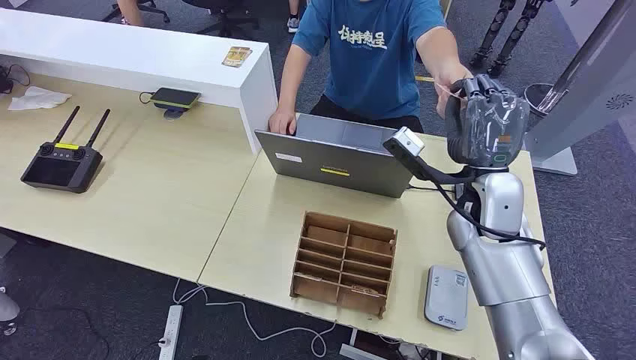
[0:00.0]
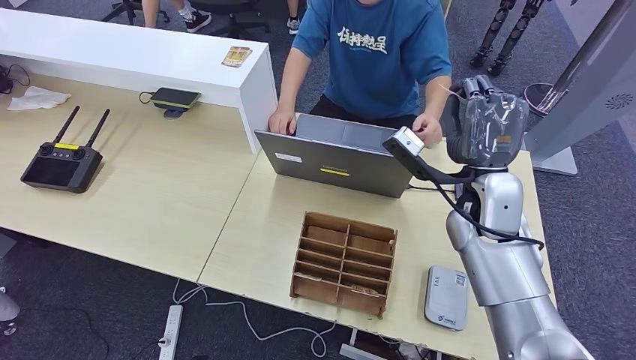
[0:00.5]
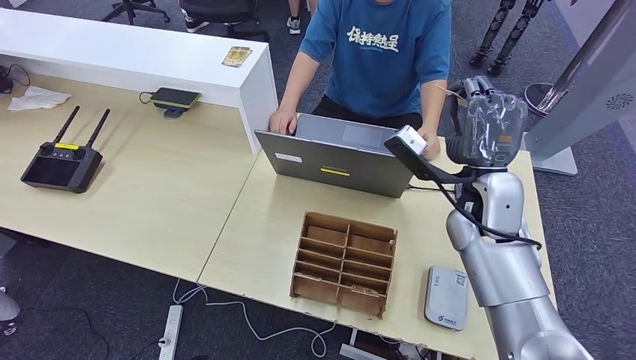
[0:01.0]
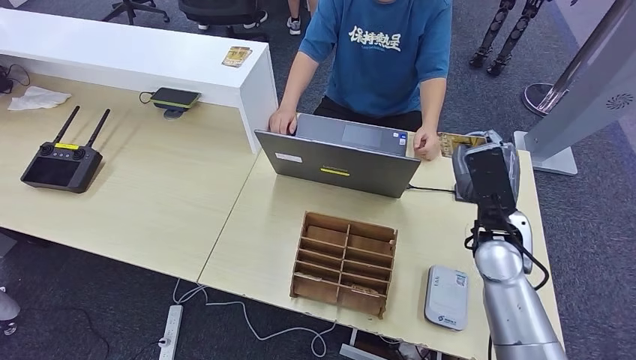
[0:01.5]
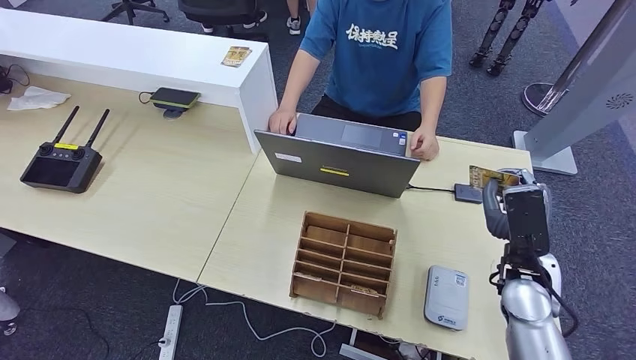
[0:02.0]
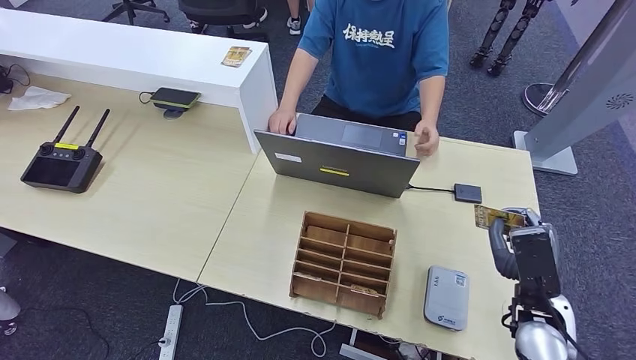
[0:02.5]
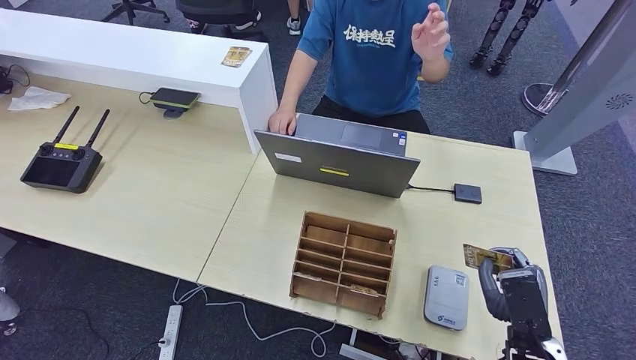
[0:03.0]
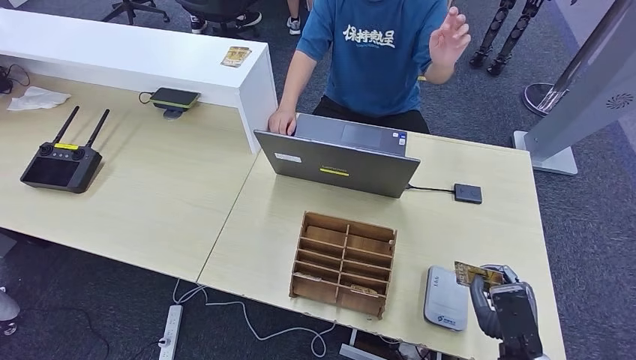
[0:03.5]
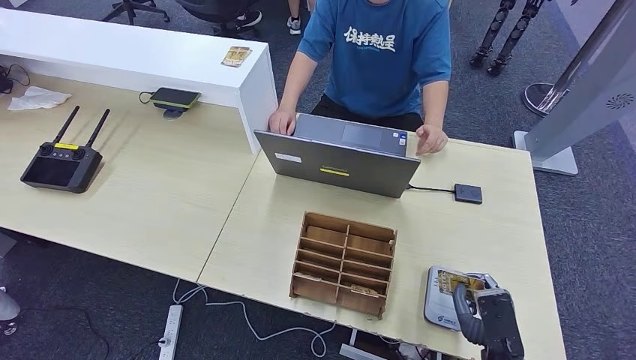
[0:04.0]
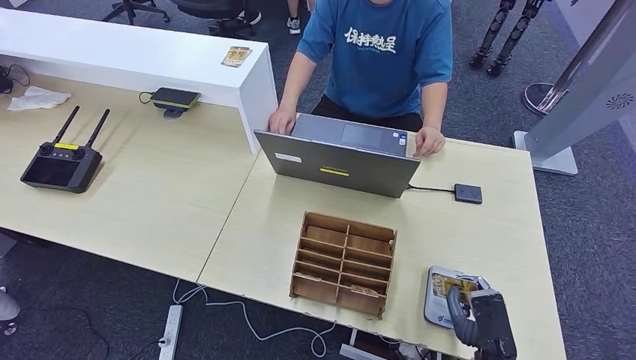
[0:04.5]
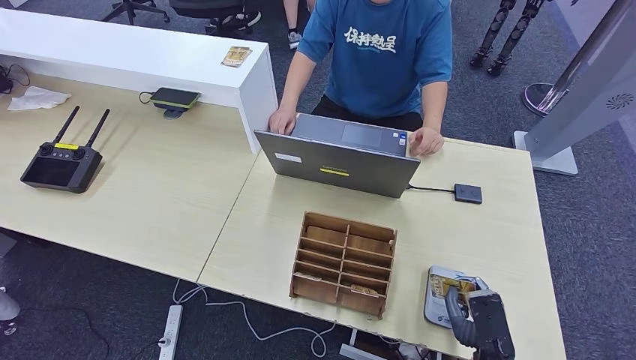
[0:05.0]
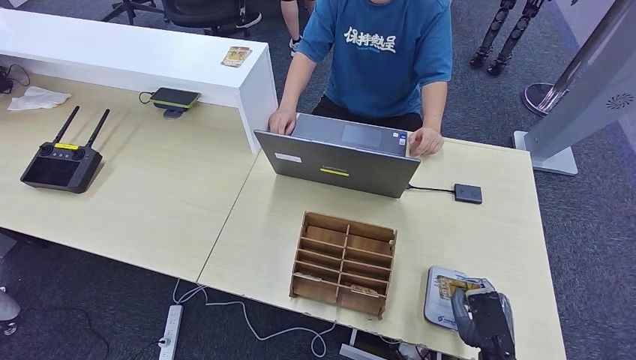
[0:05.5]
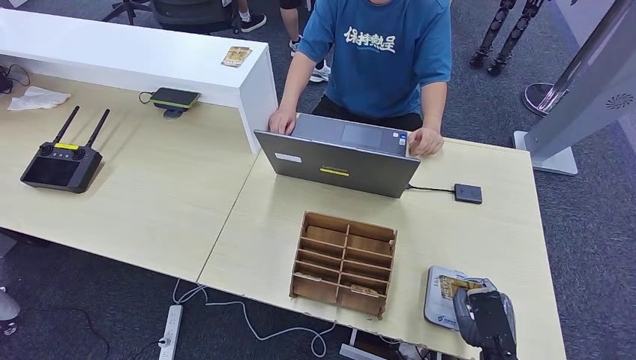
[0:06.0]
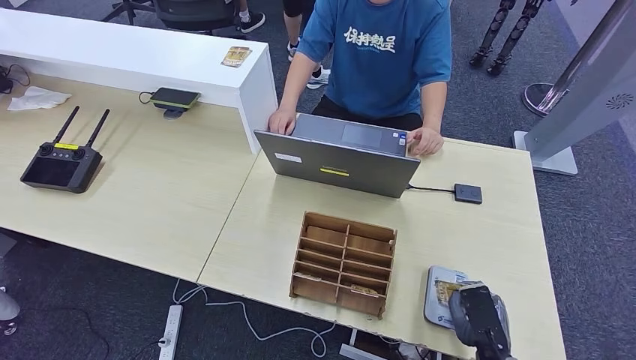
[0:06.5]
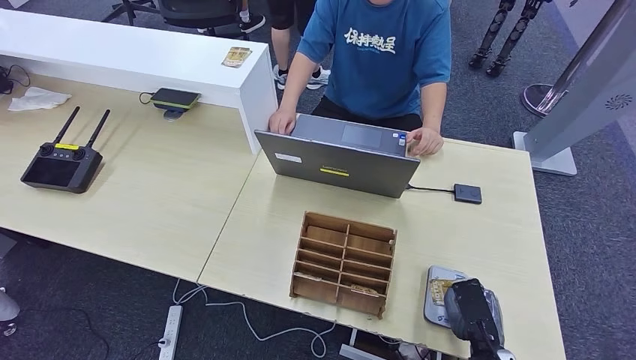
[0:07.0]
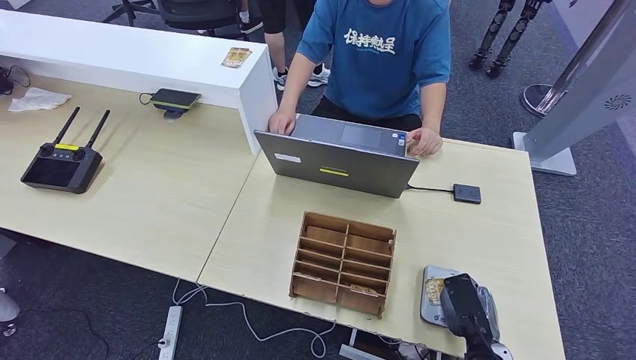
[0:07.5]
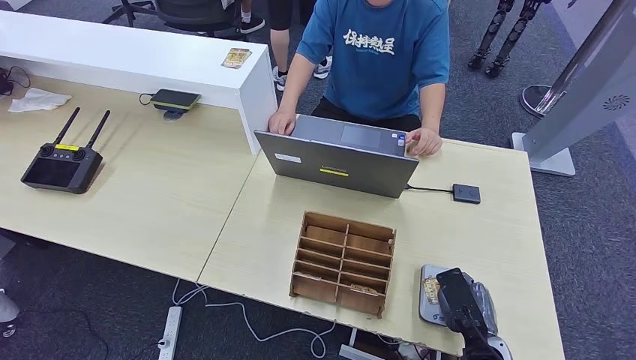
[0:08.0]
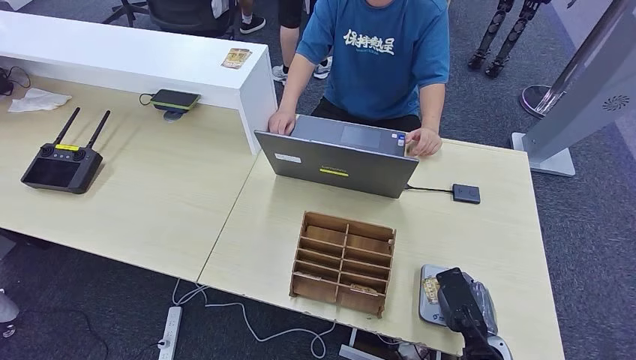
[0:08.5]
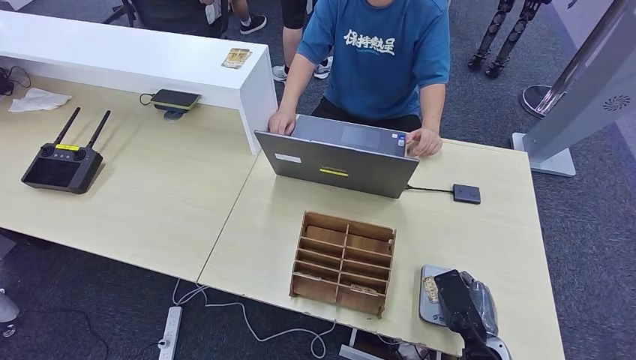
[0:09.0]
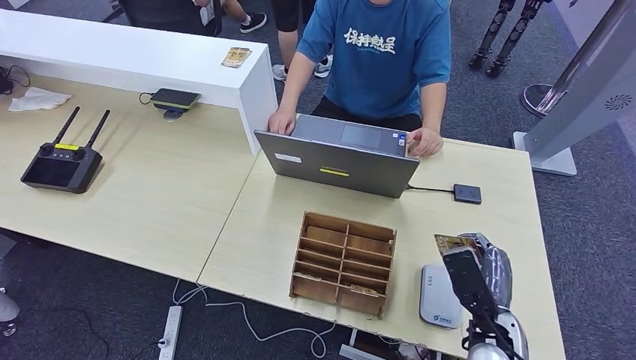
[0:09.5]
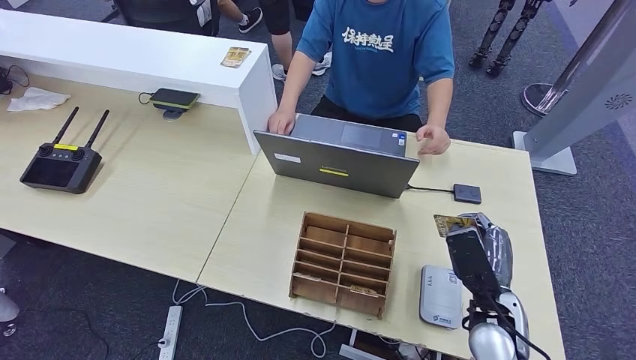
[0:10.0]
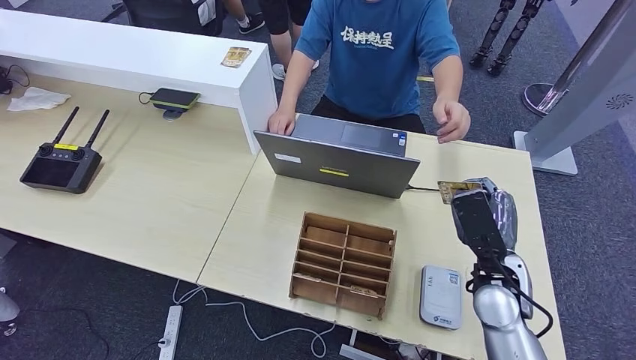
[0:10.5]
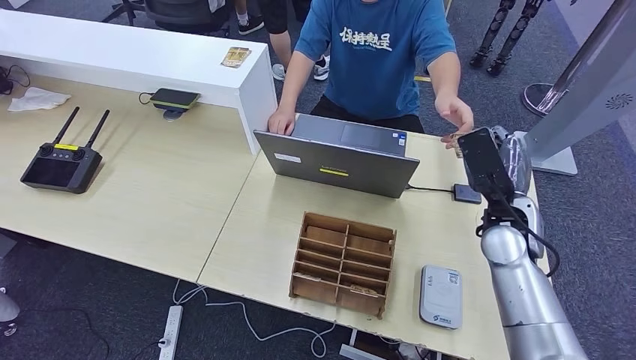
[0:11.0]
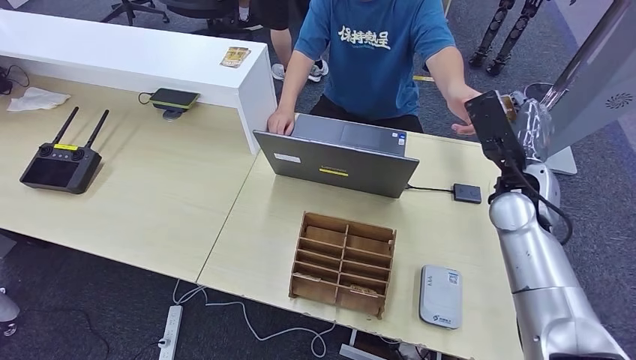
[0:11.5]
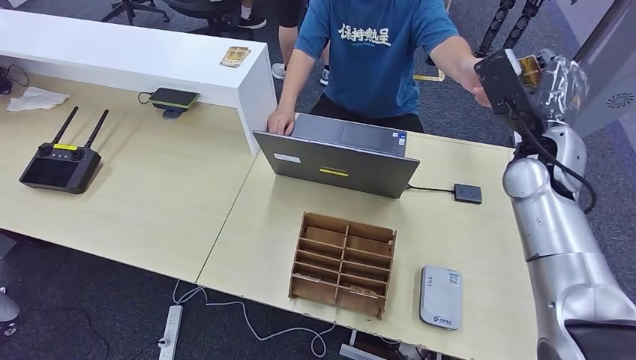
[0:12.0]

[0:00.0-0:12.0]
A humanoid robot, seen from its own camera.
Step, 0:00.0 to 0:01.5: Take the ID card from the person's hand.
Step, 0:02.0 to 0:09.5: Place the ID card on the card reader.
0:02.0 to 0:04.0: The right hand moves backward and downward, roughly 15 cm.
0:04.0 to 0:06.0: The hands move only a little.
0:06.0 to 0:08.0: There are only small adjustments of the hands.
0:08.0 to 0:10.0: The right hand is displaced upward by roughly 10 cm.
0:10.0 to 0:12.0: The right hand travels upward and forward by approximately 25 cm.

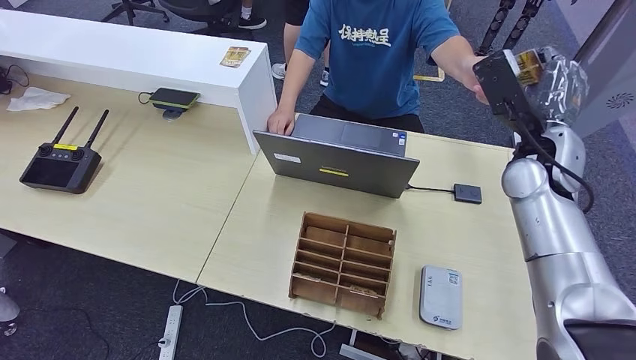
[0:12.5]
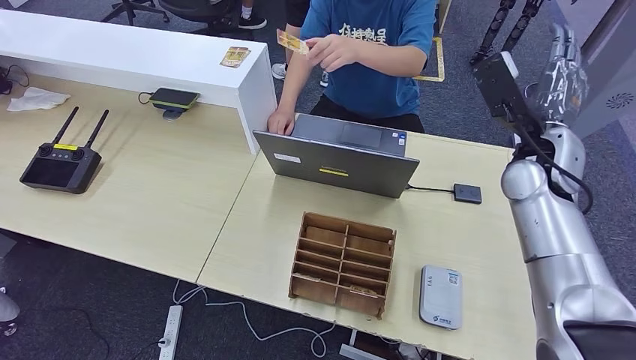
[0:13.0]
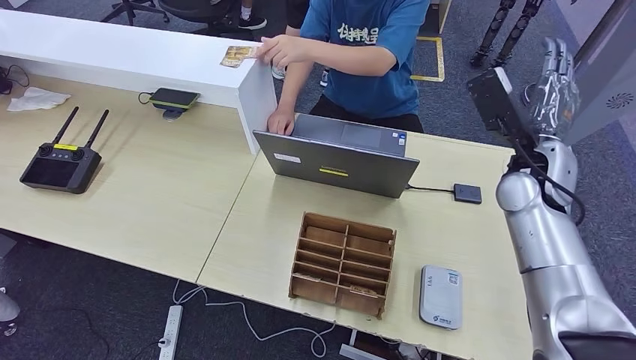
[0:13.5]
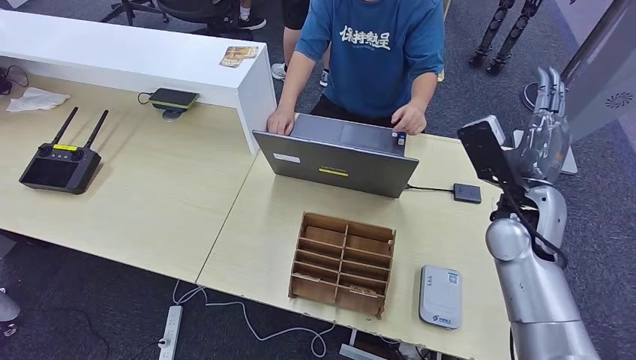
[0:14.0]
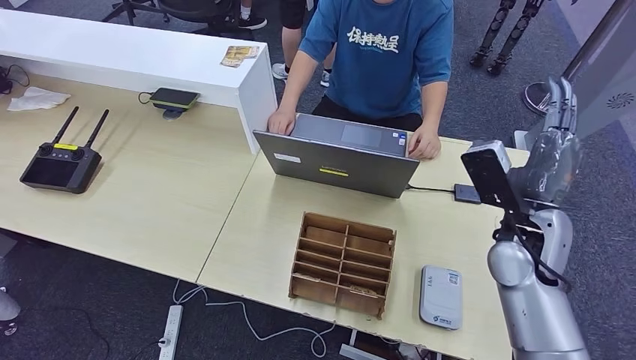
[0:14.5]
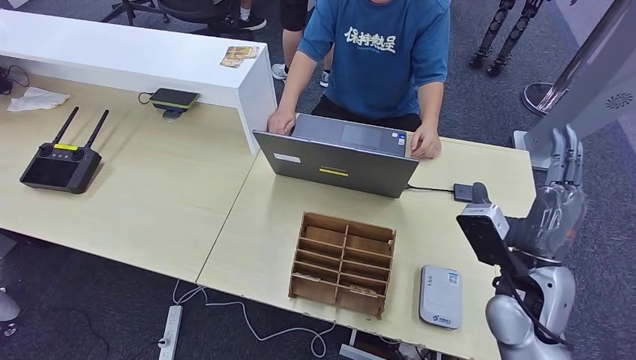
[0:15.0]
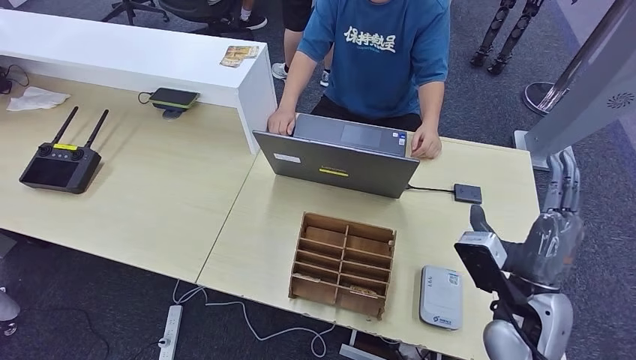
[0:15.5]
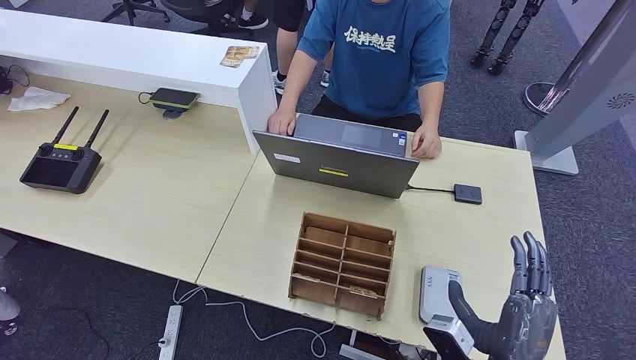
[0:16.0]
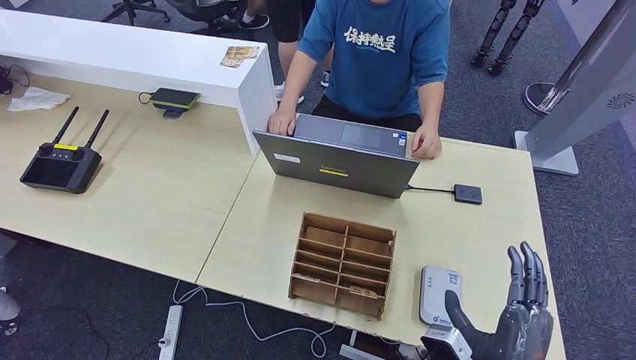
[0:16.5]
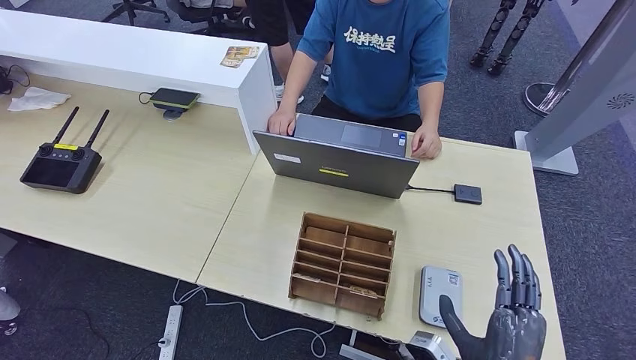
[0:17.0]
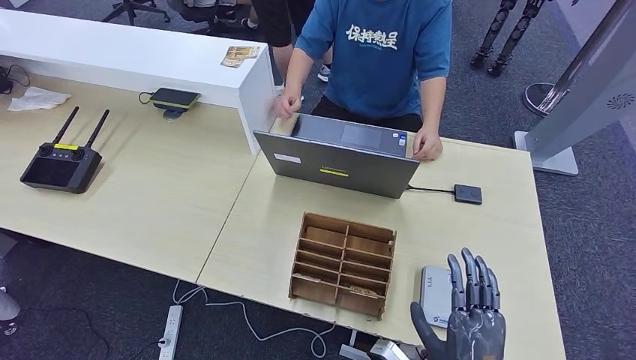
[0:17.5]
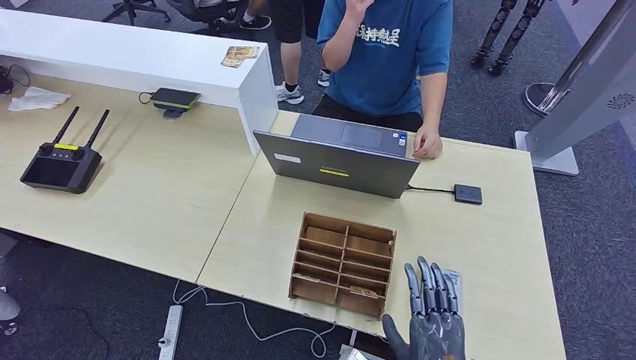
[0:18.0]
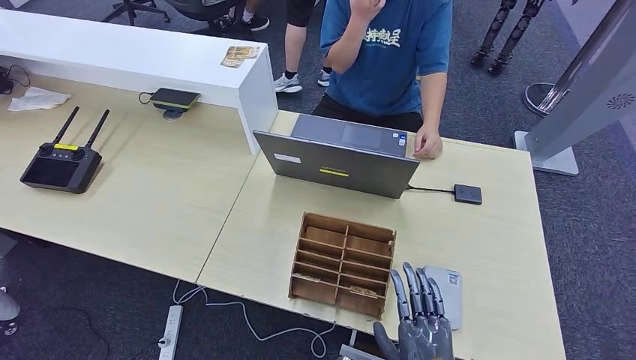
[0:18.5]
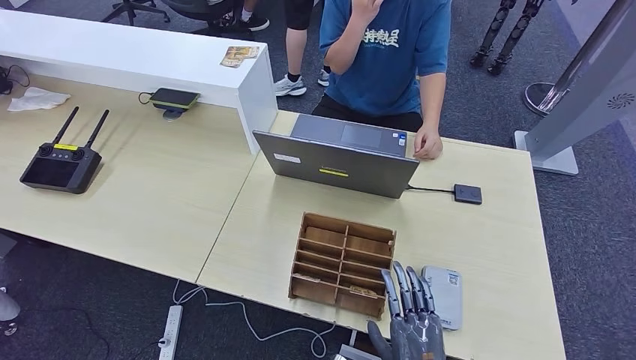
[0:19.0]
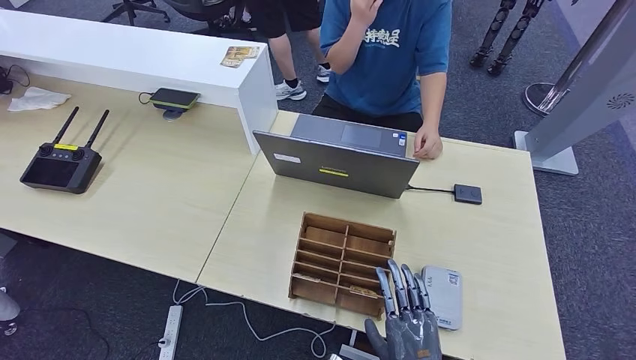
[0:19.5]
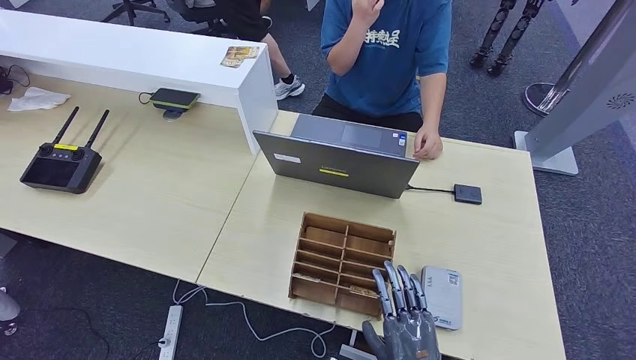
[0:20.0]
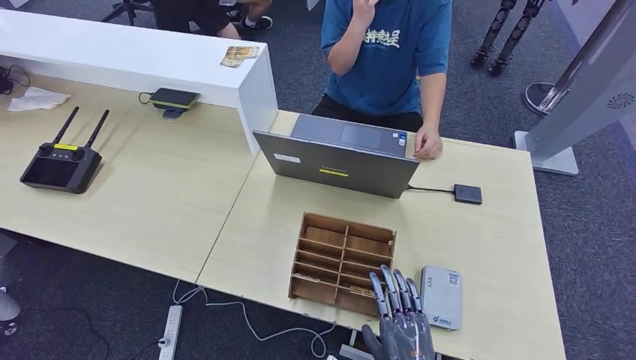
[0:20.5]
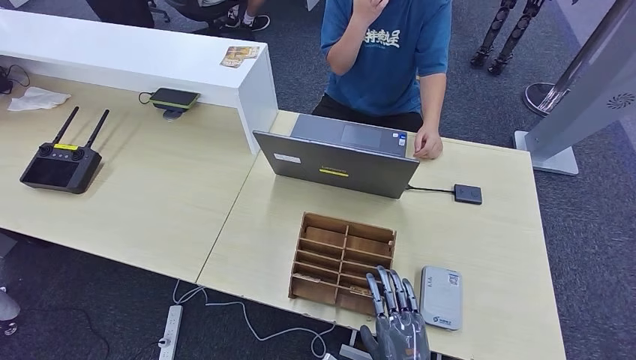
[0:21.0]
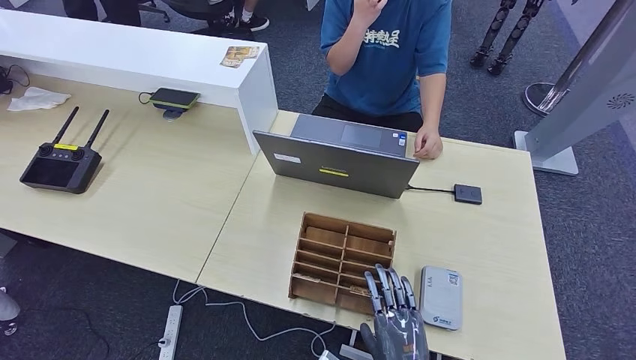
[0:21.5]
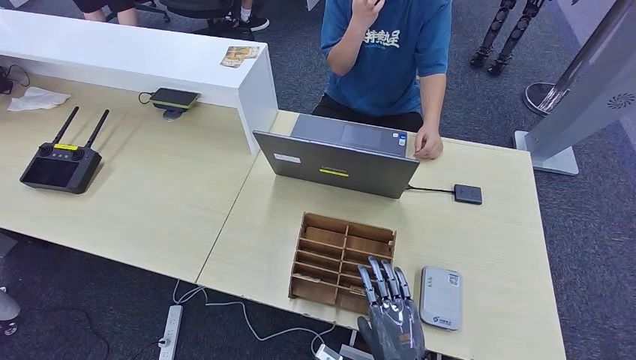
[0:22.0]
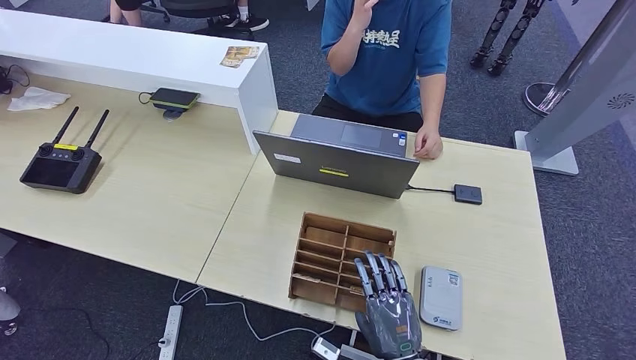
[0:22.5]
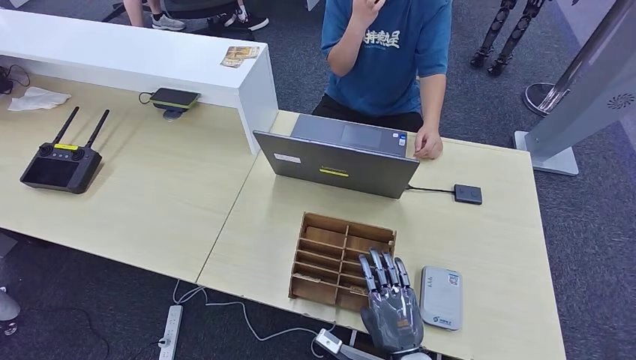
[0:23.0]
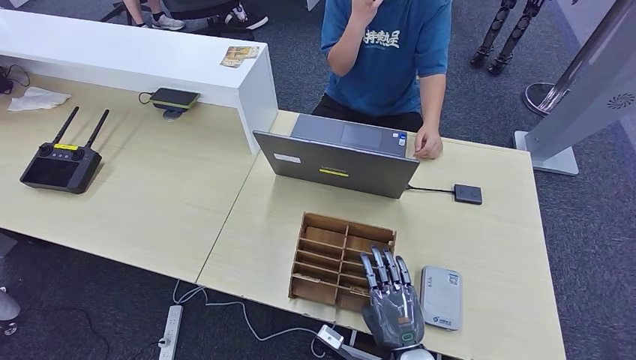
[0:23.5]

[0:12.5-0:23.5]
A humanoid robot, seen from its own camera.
0:12.5 to 0:14.5: The right hand moves backward and downward, approximately 10 cm.
0:14.5 to 0:16.0: The right hand is displaced backward and downward by about 20 cm.
0:16.0 to 0:18.0: The right hand moves to the left, roughly 10 cm.
0:18.0 to 0:21.5: The hands stay close to where they were, moving slightly.
0:21.5 to 0:23.5: There are only small adjustments of the hands.
